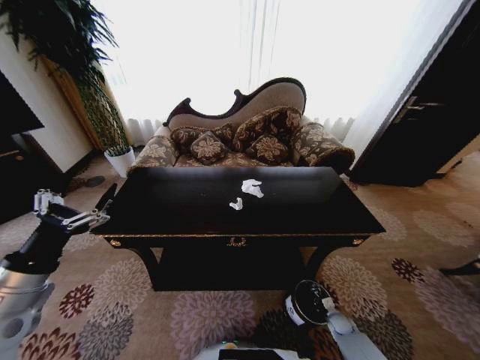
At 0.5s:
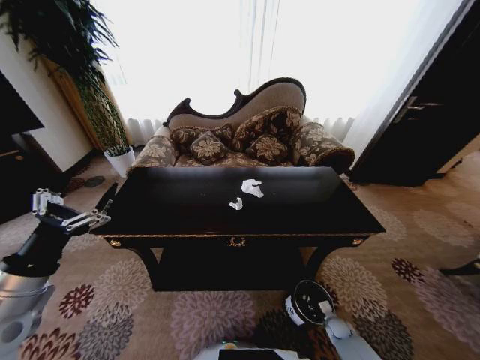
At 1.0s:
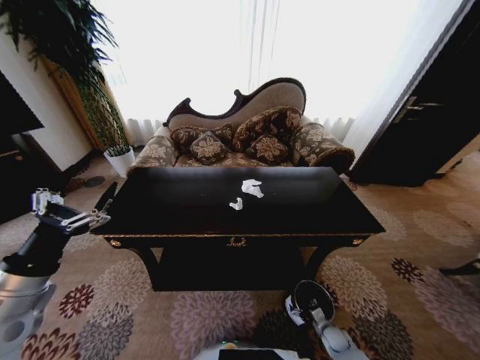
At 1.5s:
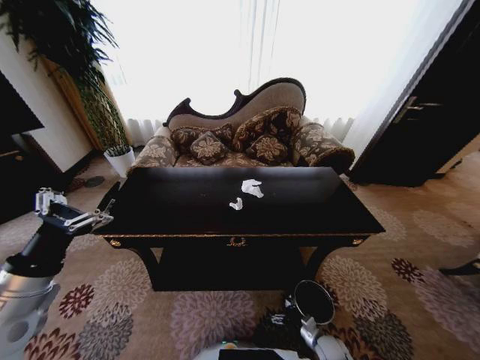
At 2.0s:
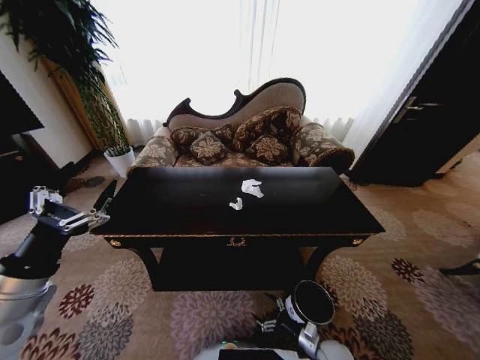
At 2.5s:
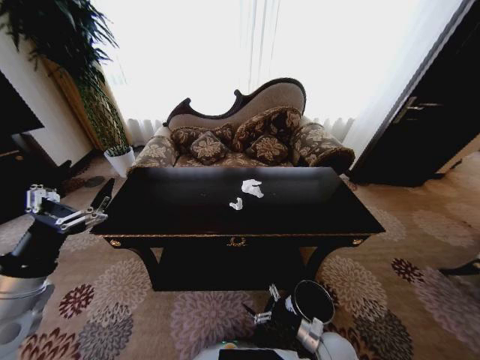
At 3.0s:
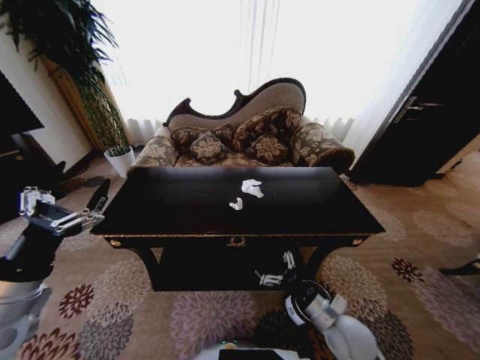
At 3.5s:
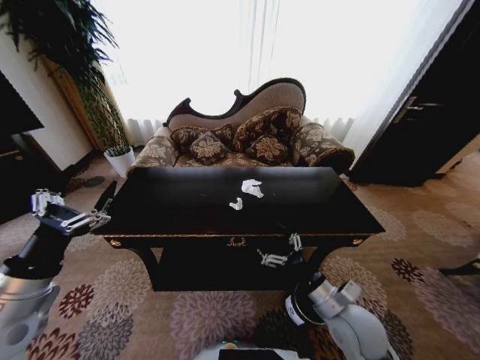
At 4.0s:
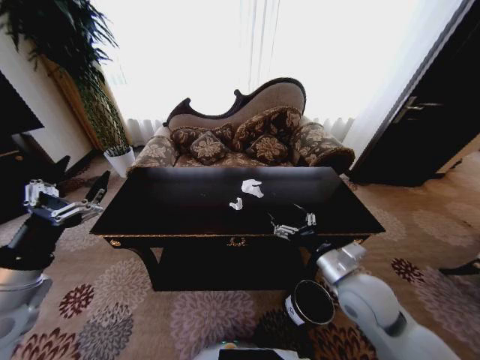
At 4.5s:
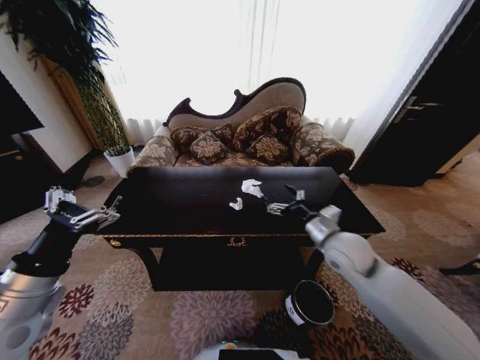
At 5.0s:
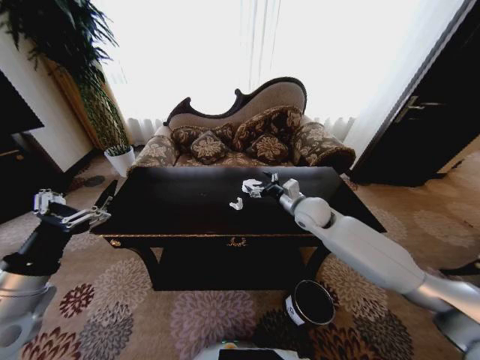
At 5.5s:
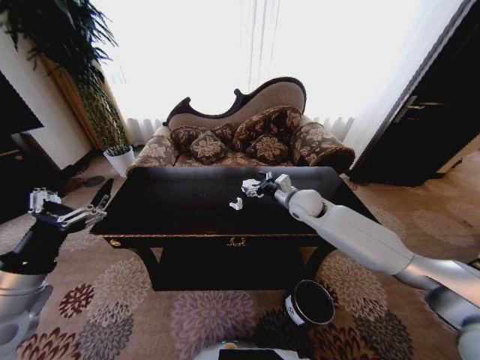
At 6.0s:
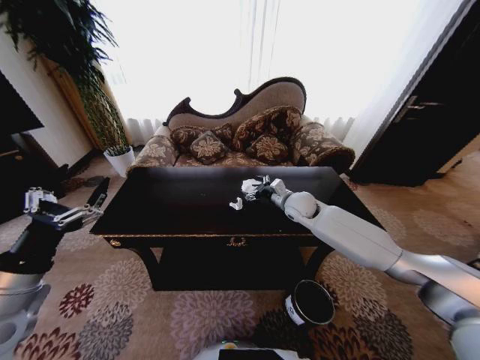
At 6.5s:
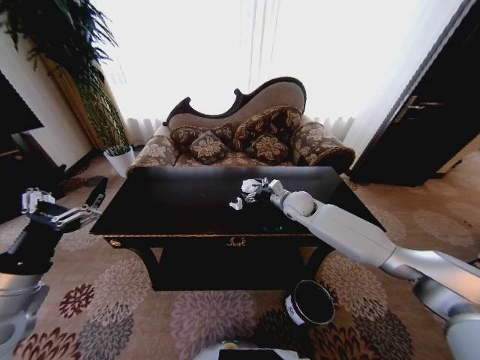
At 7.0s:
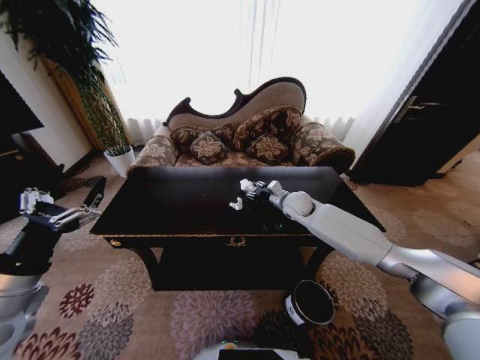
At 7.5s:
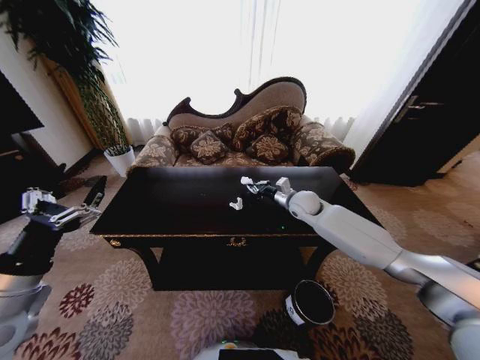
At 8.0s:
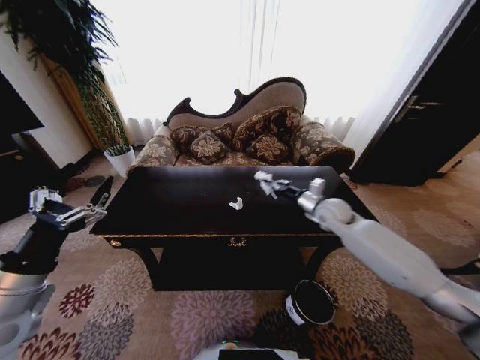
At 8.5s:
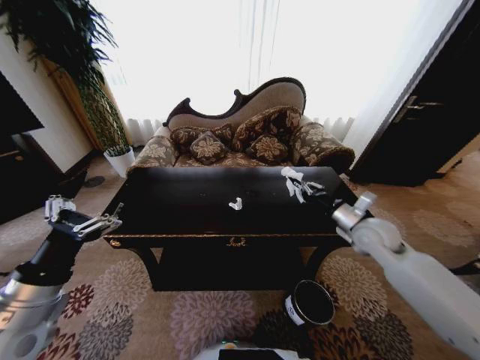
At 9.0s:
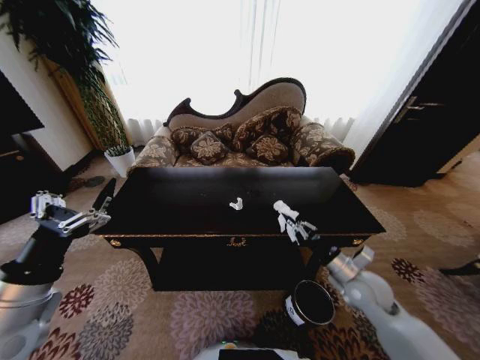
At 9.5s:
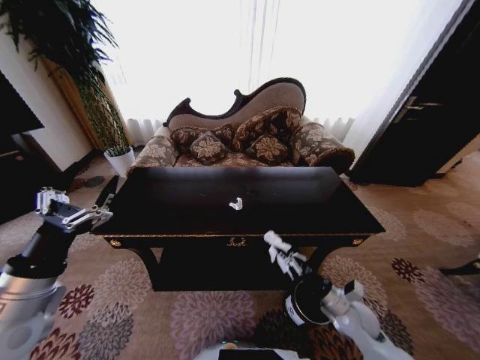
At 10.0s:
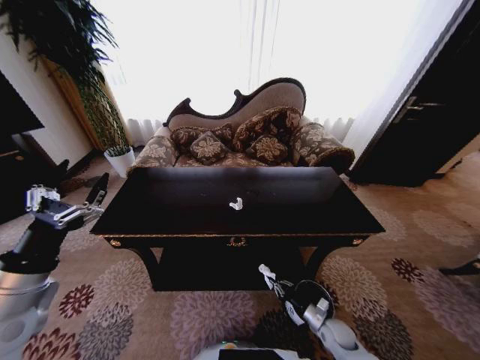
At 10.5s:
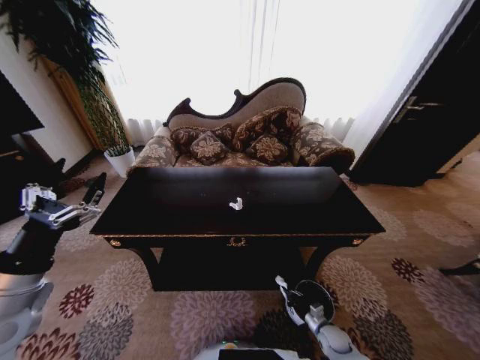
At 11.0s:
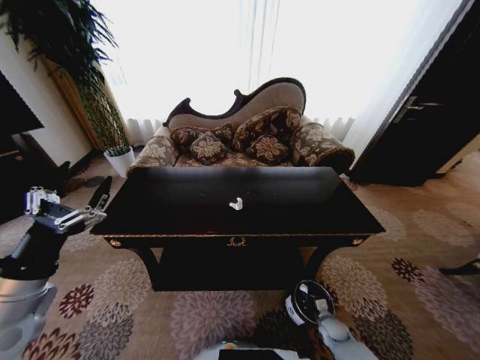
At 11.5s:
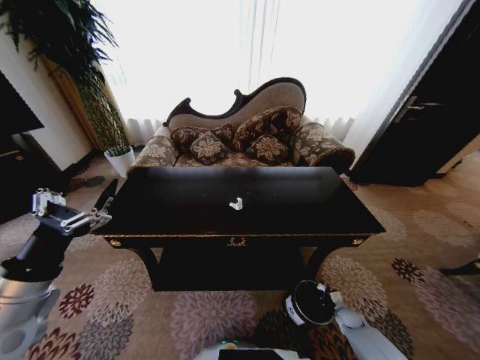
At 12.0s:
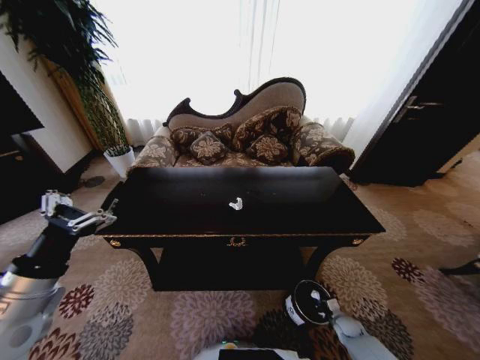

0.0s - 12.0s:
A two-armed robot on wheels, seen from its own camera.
Task of the whole recording: Move to the front of the table and place the trash on the table into the trash bin.
0.0s - 2.0s: The right gripper shifts about 20 cm to the left, upward and backward, and opens.
2.0s - 4.0s: The right gripper shifts about 35 cm upward.
4.0s - 6.0s: The right gripper is displaced forward by about 25 cm.
6.0s - 8.0s: The right gripper moves to the right, roughly 10 cm, and closes its fingers.
8.0s - 10.0s: The right gripper goes approximately 40 cm downward and backward.
10.0s - 12.0s: The right gripper moves to the right and downward, about 15 cm.

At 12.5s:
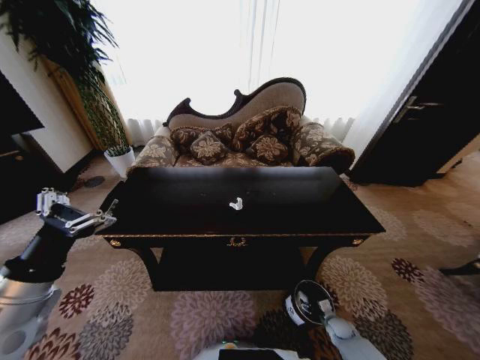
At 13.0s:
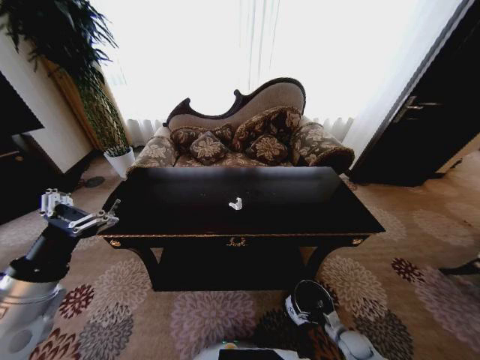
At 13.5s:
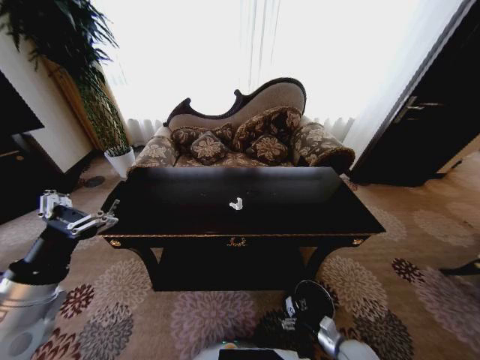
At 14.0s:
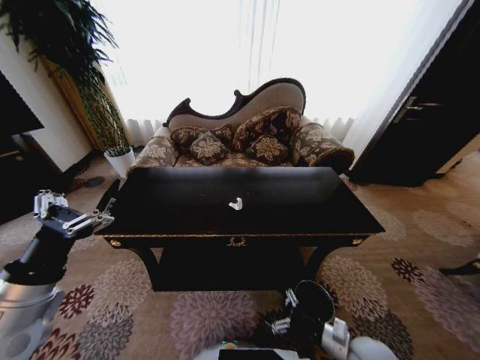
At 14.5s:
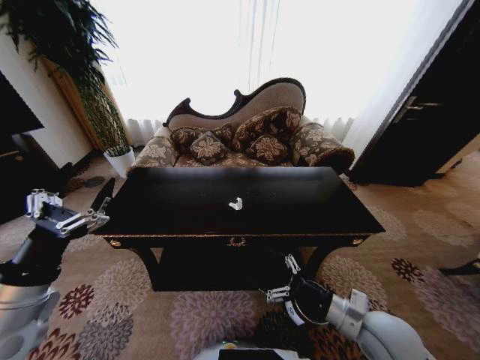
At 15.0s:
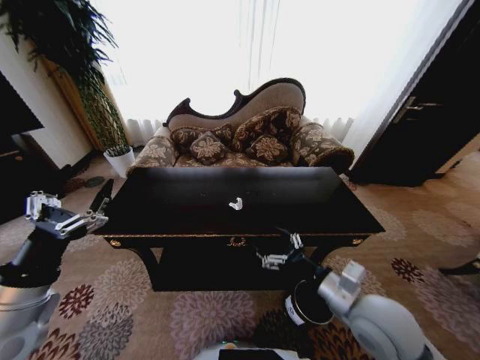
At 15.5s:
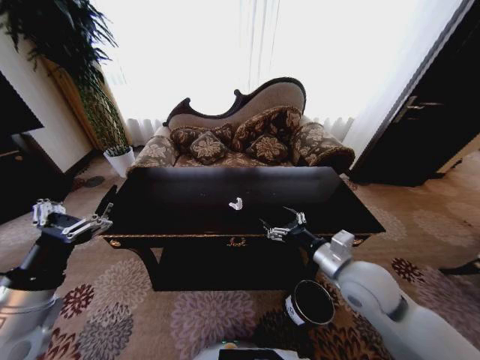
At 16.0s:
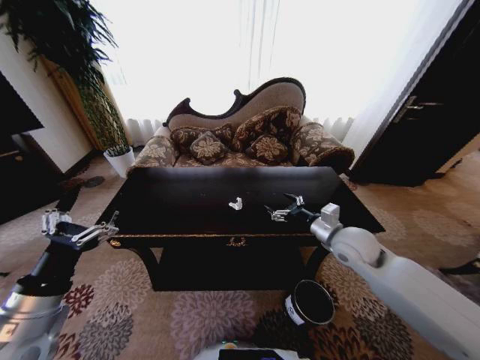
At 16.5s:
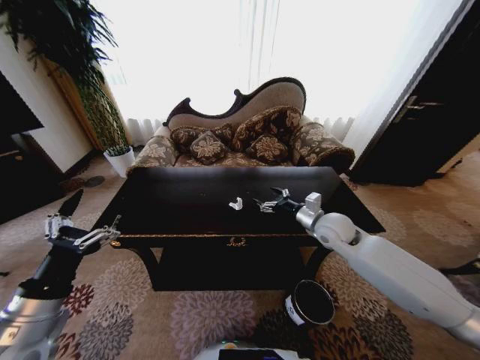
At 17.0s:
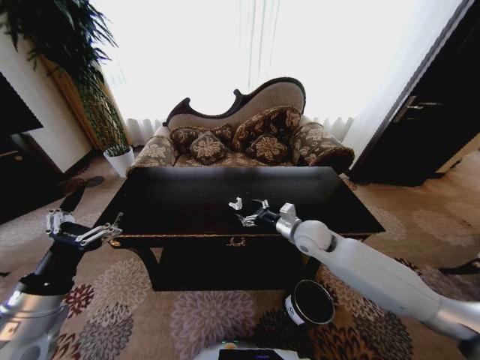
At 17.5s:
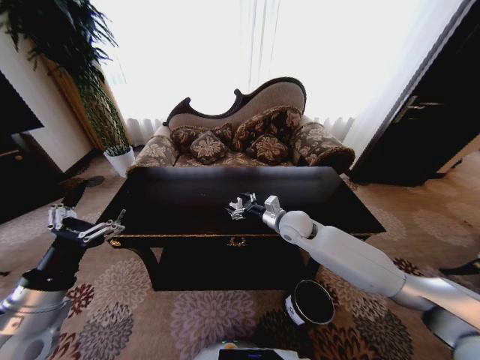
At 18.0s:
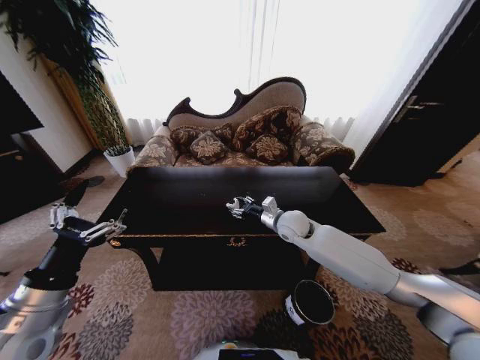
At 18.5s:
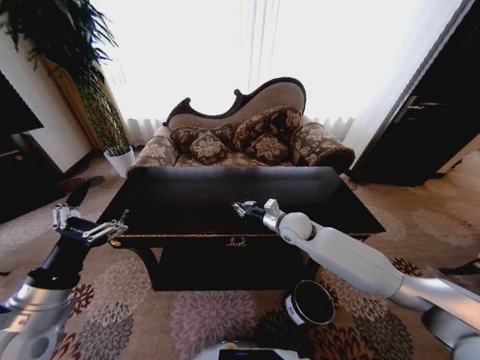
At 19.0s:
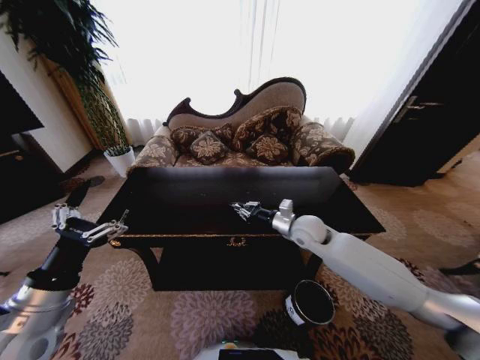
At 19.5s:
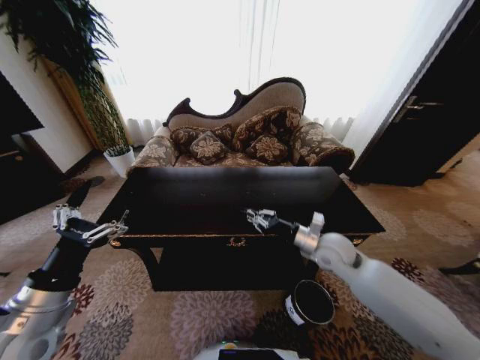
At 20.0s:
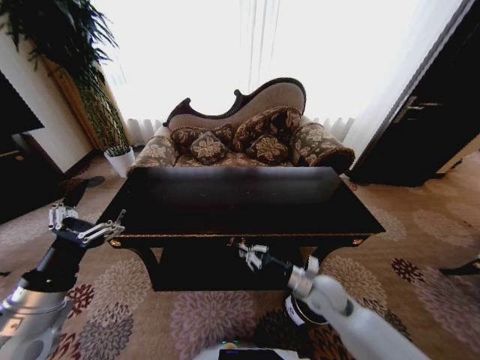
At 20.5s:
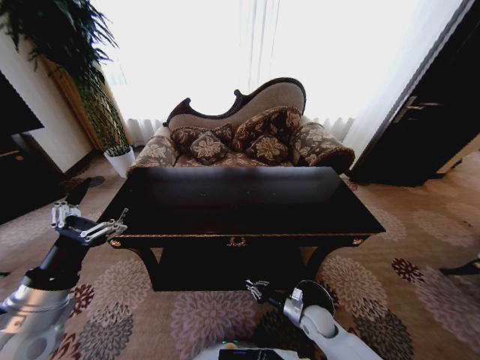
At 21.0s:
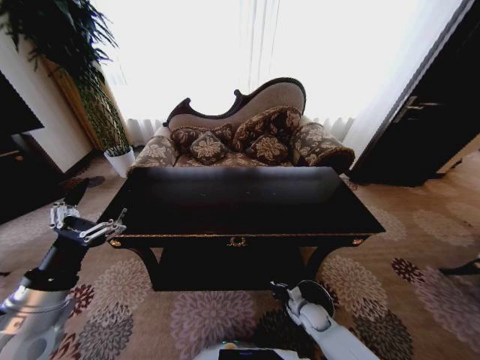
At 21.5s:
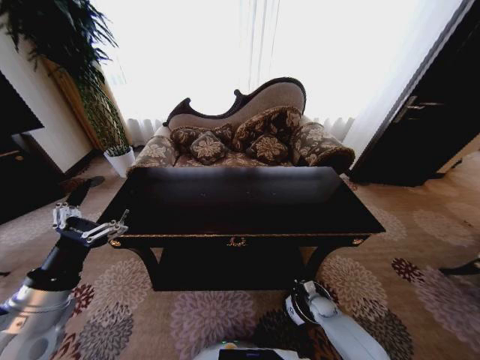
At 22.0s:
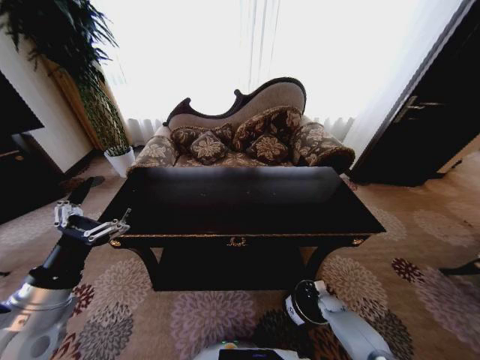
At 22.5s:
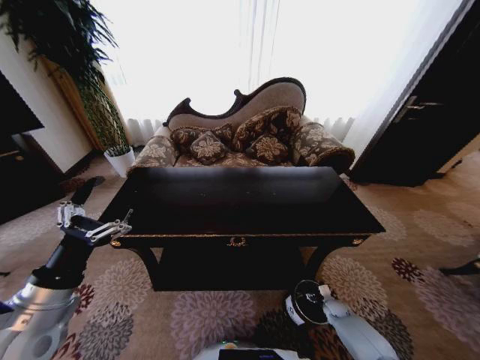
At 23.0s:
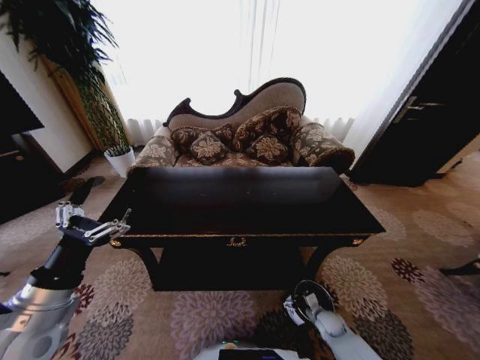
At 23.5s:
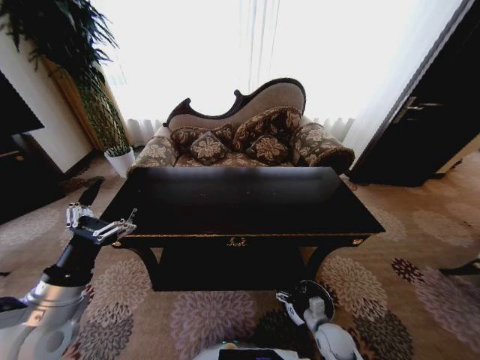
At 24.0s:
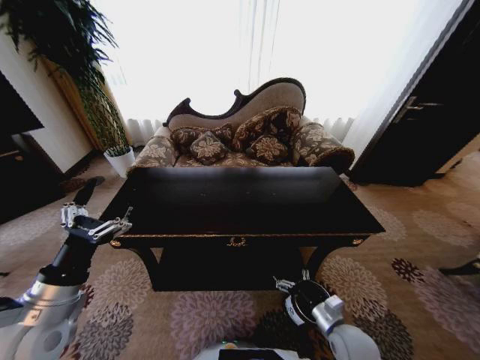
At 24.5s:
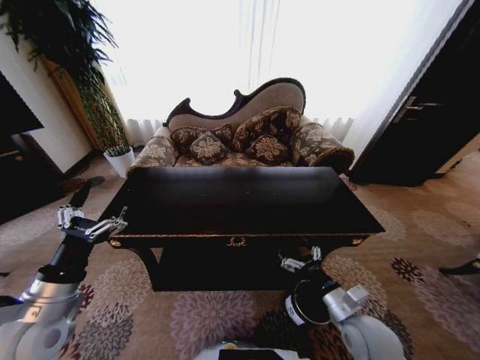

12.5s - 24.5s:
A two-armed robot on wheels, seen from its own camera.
Task of the whole recording: Move to the front of the table and place the trash on the table into the trash bin.
12.5s - 14.5s: The right gripper moves upward, some 35 cm.
14.5s - 16.5s: The right gripper shifts roughly 25 cm forward.
16.5s - 18.5s: The right gripper travels to the left by approximately 10 cm, and closes up.
18.5s - 20.5s: The right gripper moves downward and backward, some 30 cm.
20.5s - 22.5s: The right gripper shifts roughly 20 cm to the right and downward, and opens up.
22.5s - 24.5s: The right gripper shifts about 35 cm upward and to the left.
